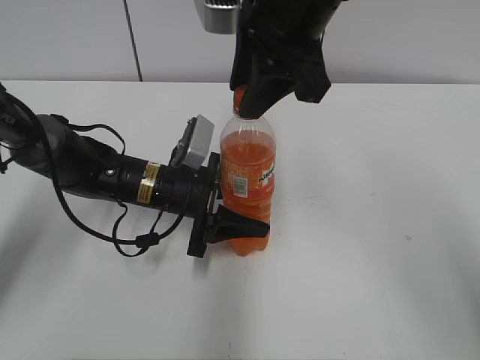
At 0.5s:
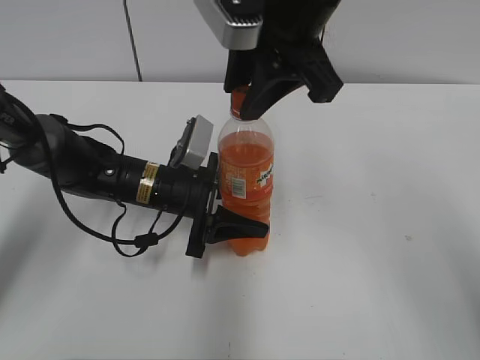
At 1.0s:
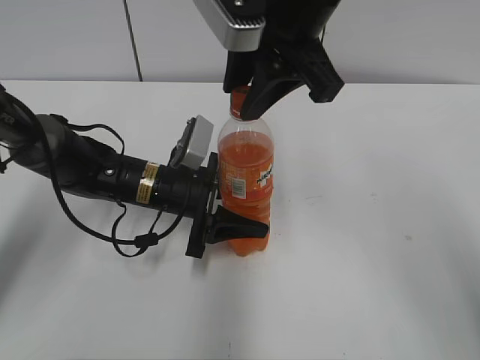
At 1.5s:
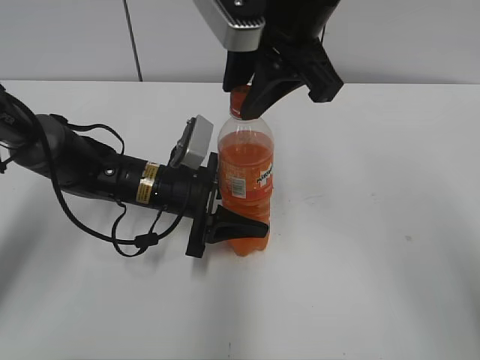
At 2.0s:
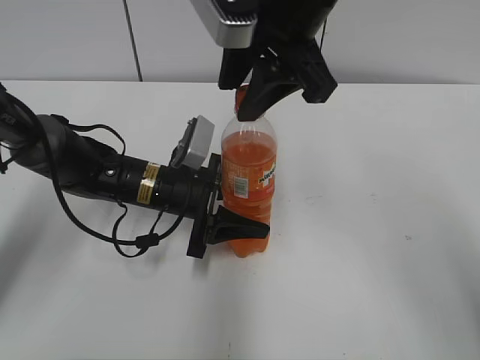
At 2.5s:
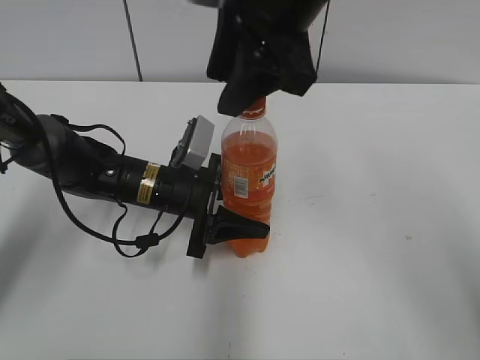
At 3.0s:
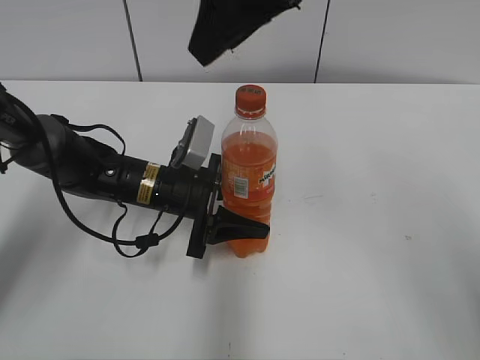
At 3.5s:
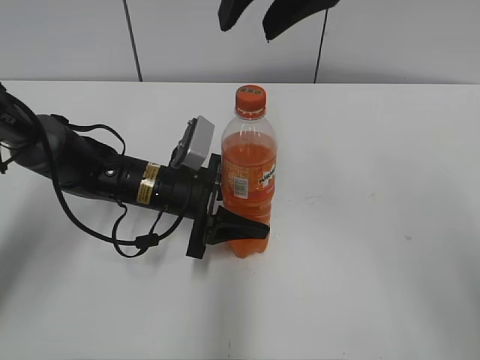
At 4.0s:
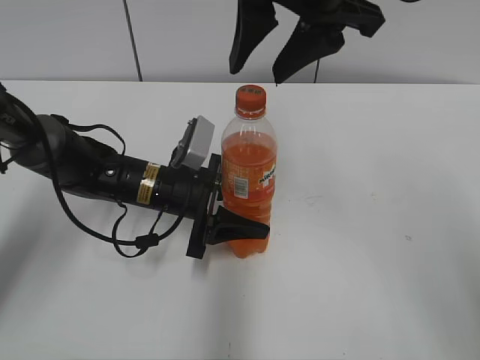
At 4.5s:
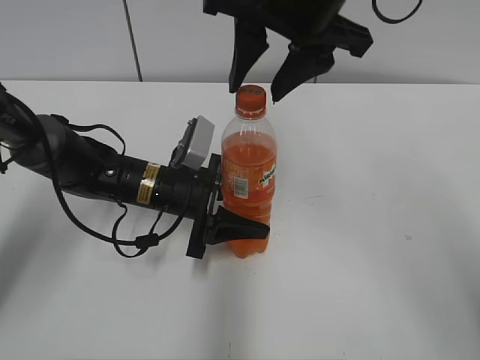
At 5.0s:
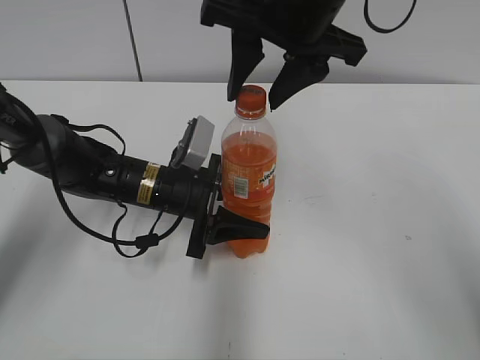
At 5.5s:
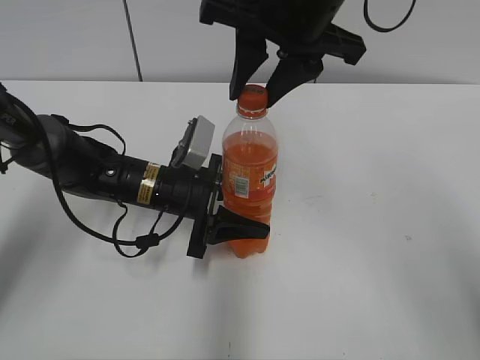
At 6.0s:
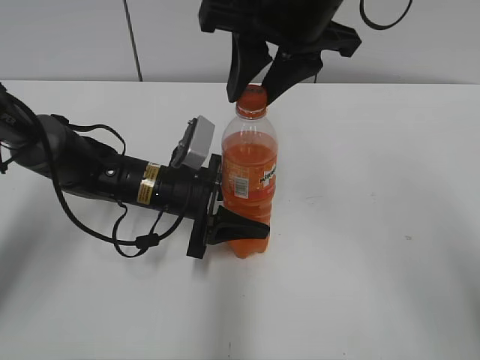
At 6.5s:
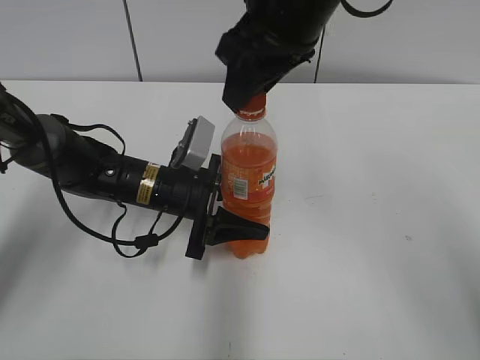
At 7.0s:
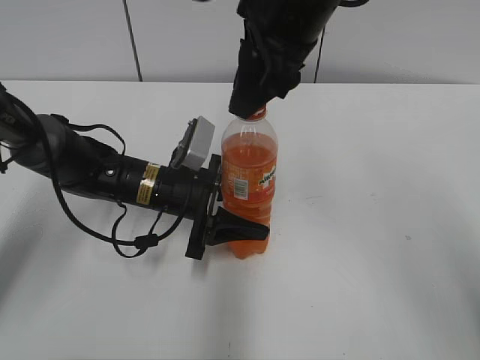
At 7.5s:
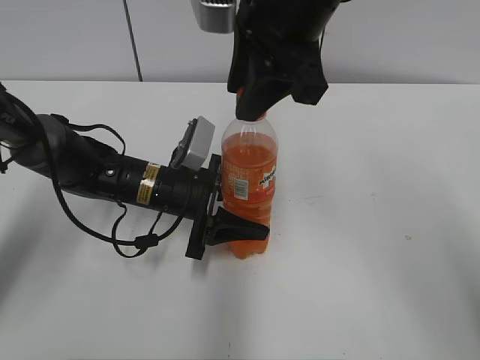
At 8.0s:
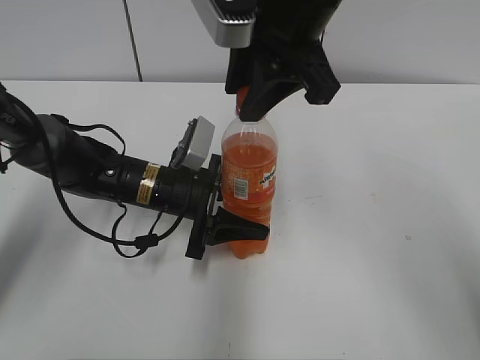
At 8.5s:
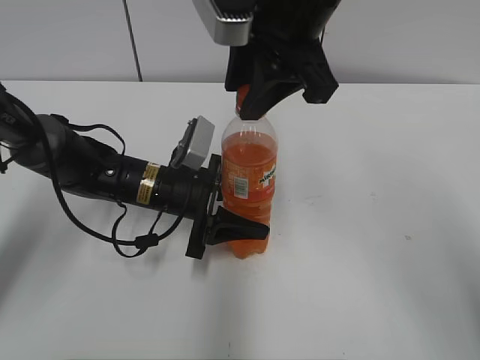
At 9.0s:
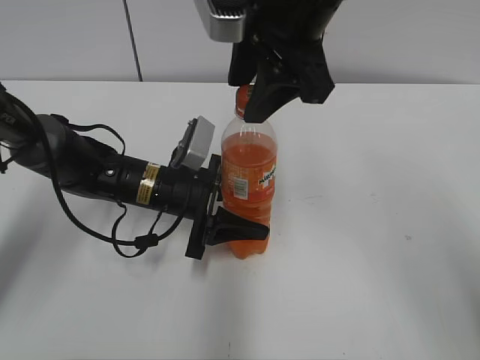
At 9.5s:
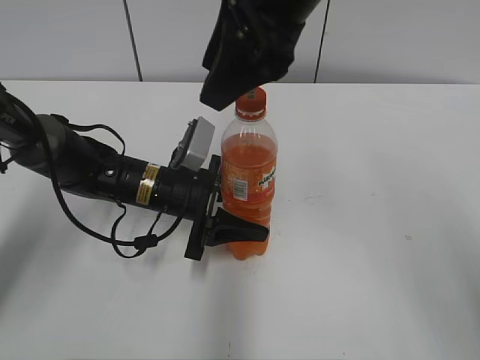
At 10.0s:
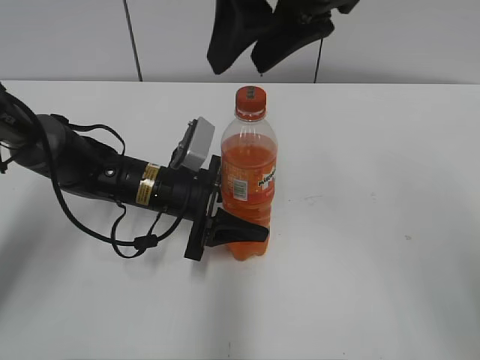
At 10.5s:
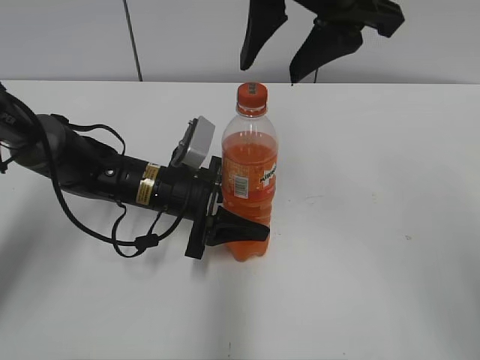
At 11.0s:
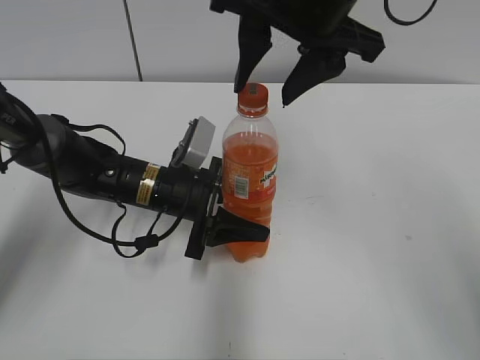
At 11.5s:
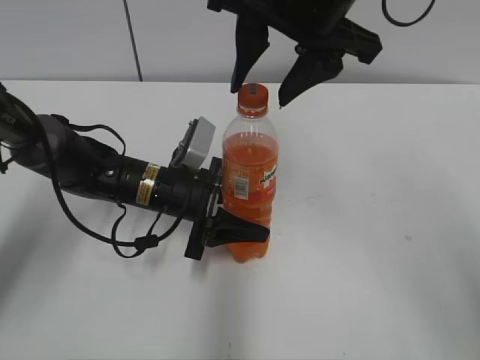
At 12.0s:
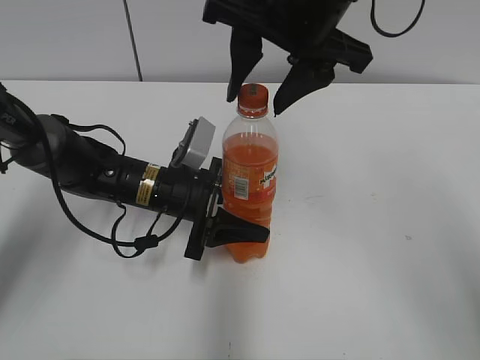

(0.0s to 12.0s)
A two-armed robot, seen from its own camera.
0.0s - 2.0s: The grippers move only a little.
4.0s - 6.0s: The grippers make only small movements.
8.0s - 10.0s: The right gripper opens its fingers.

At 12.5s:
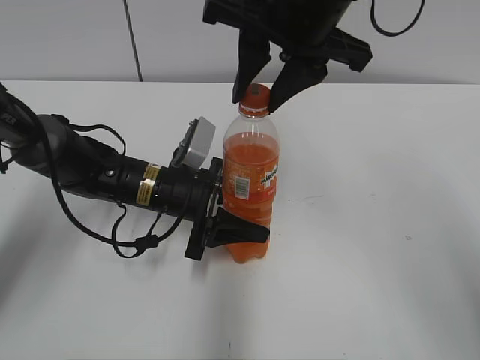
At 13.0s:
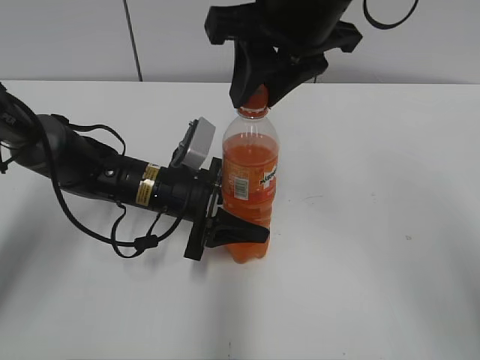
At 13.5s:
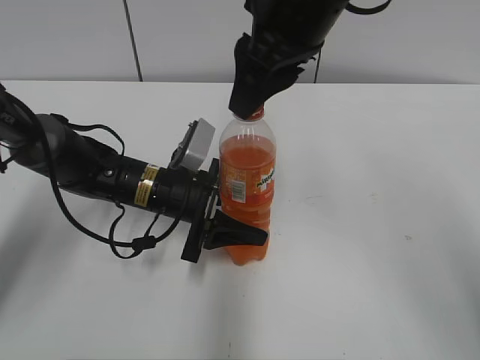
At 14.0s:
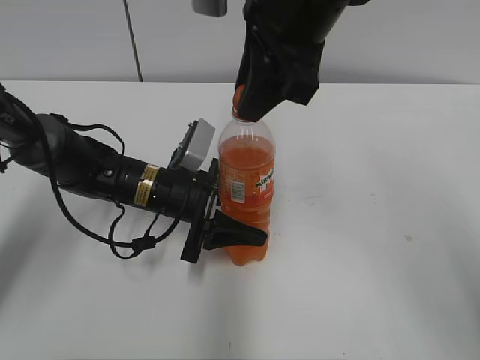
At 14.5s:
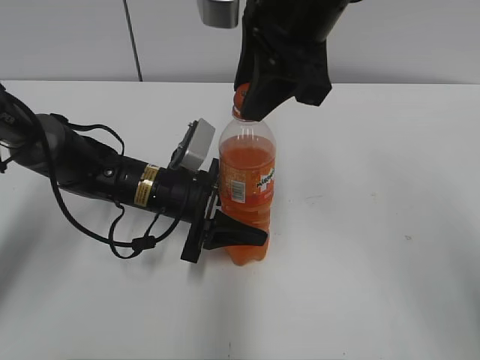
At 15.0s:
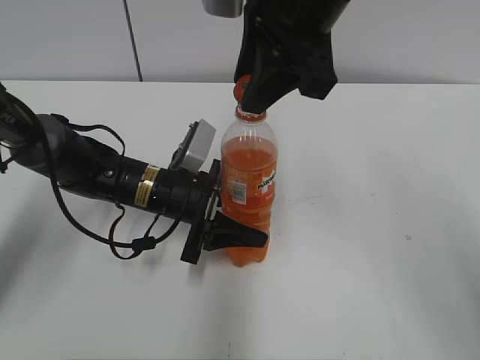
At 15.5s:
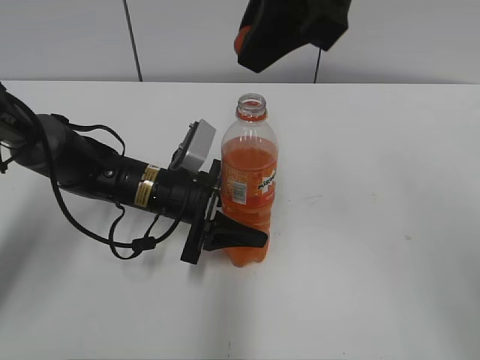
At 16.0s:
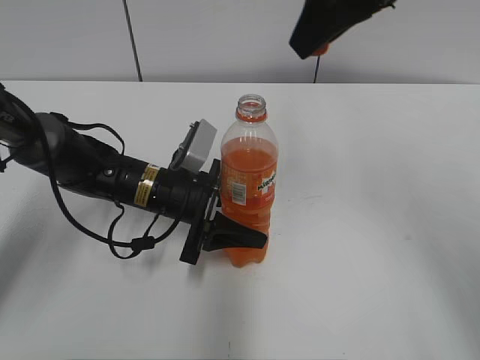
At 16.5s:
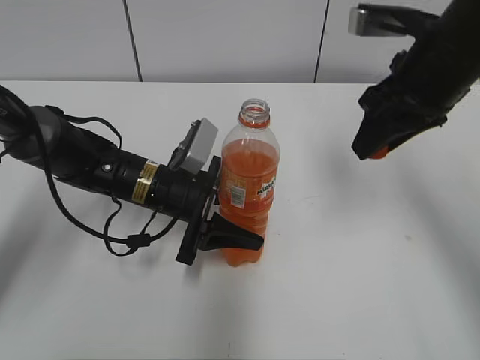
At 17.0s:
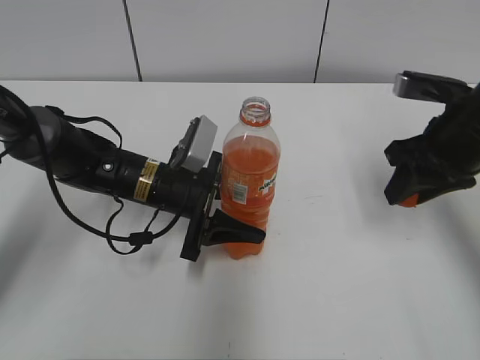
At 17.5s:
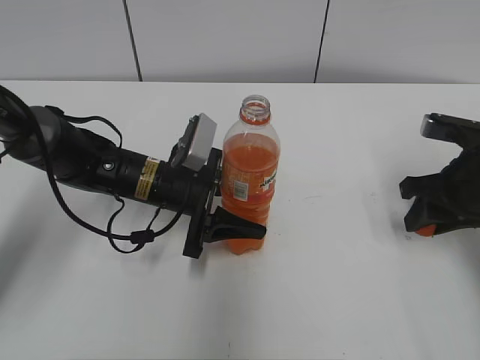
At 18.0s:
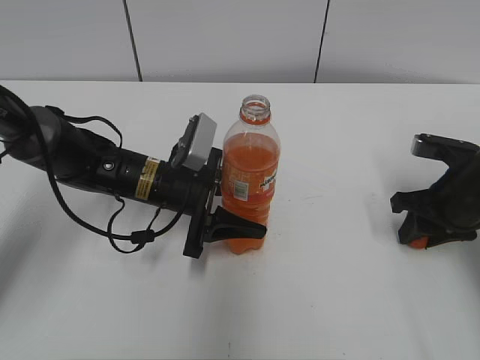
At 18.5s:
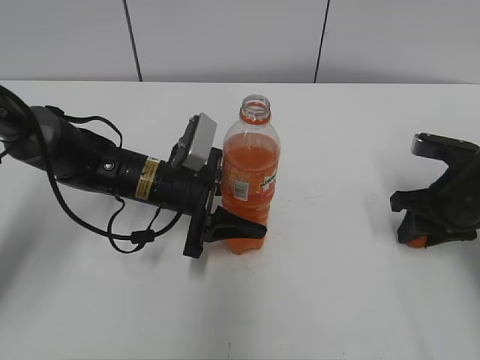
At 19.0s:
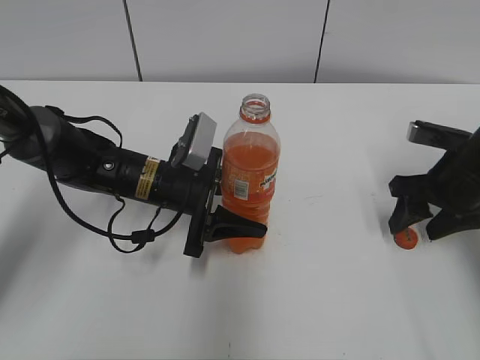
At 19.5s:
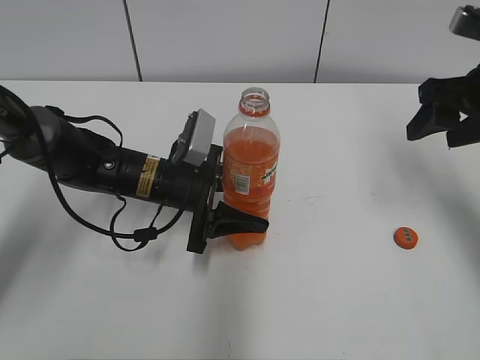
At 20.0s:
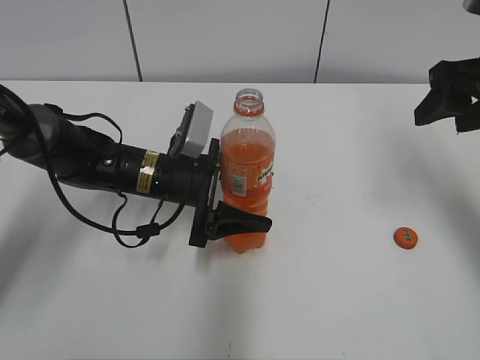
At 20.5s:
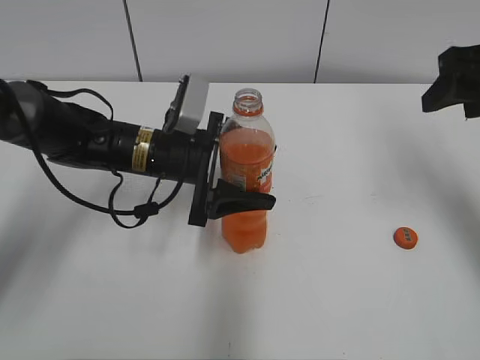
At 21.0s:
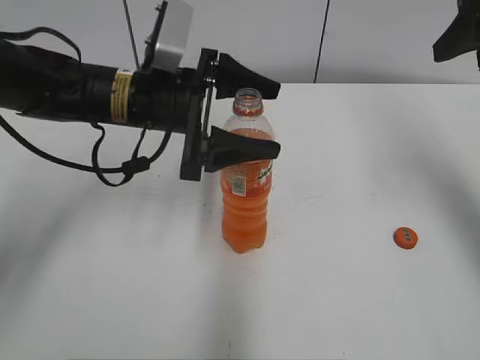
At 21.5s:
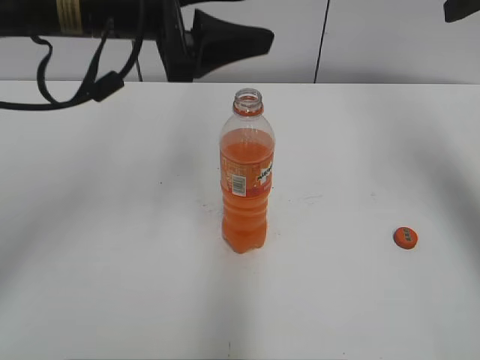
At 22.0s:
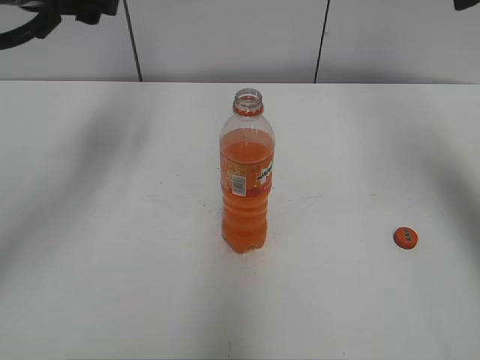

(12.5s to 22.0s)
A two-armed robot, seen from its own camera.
Step, 12.5s - 15.0s: Fix the Mirinda on the left.
Step, 15.5s - 18.5s: Place the bottle cap on the right.
14.5s - 16.5s: The right gripper shifts roughly 15 cm to the right and downward.
16.5s - 18.0s: The right gripper goes approximately 20 cm downward and to the right.
18.0s - 20.0s: The left gripper opens, while the right gripper shifts approximately 15 cm upward, and opens its fingers.
20.0s - 22.0s: The right gripper travels upward by about 15 cm. Meanwhile the left gripper moves upward and to the left, approximately 25 cm.

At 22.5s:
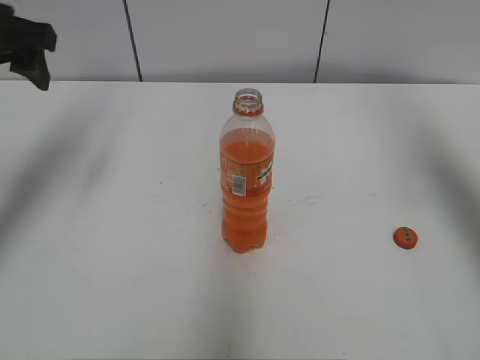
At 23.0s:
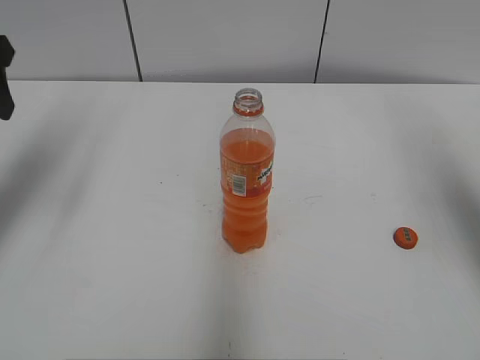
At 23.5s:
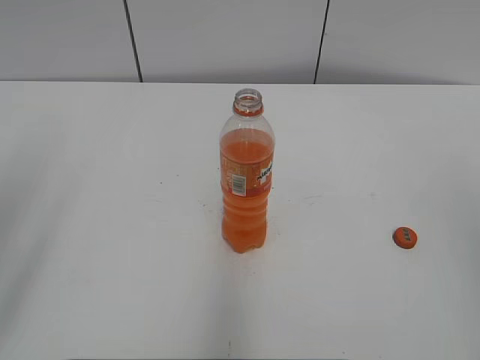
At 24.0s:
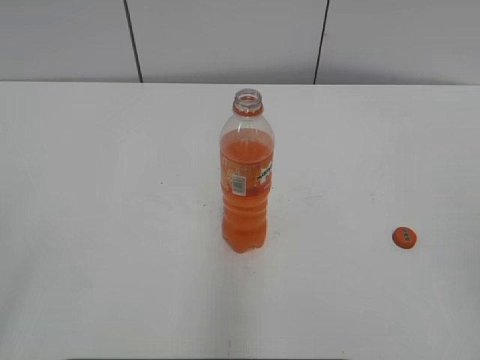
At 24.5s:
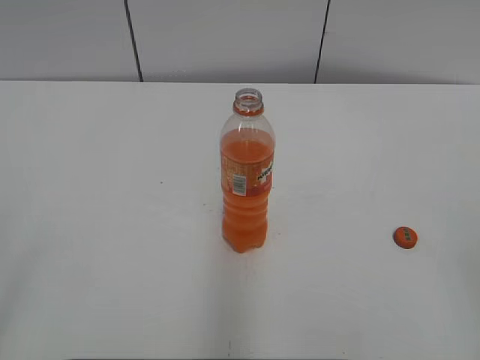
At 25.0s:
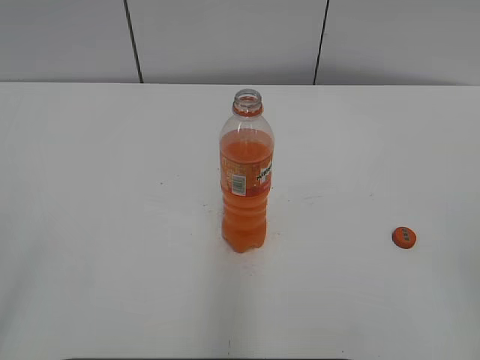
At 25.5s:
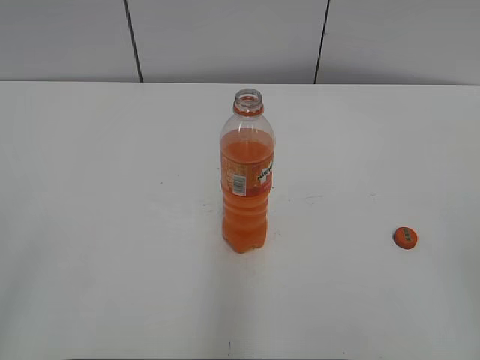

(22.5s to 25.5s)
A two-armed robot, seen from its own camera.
22.5s - 24.0s: Both grippers travel together backward, roughly 30 cm.

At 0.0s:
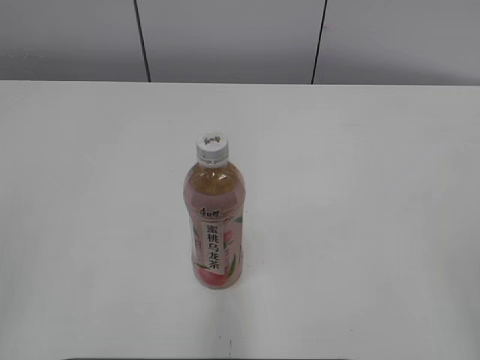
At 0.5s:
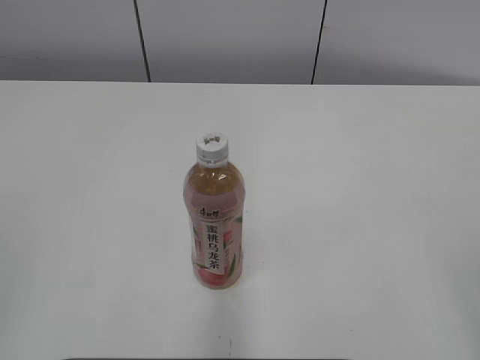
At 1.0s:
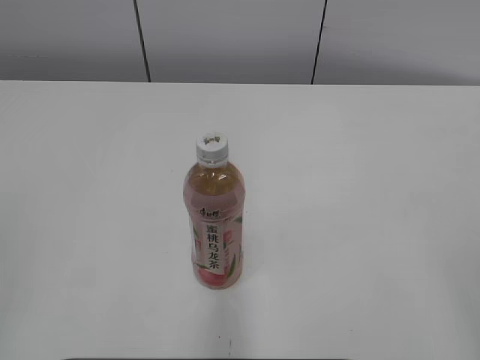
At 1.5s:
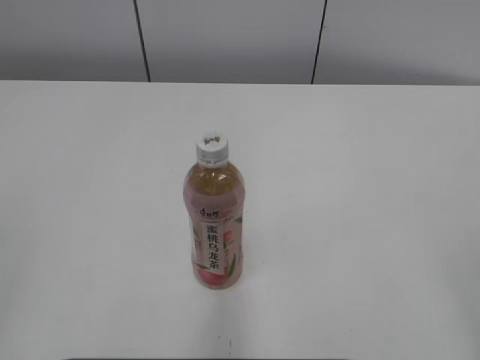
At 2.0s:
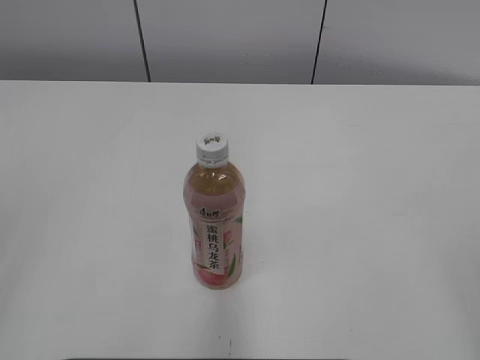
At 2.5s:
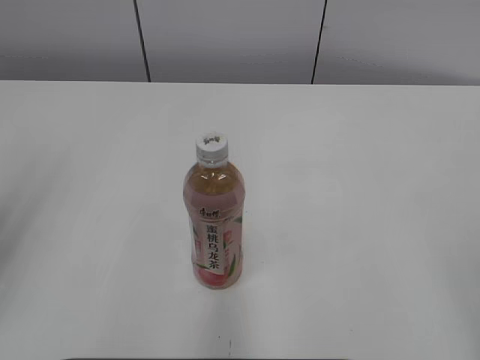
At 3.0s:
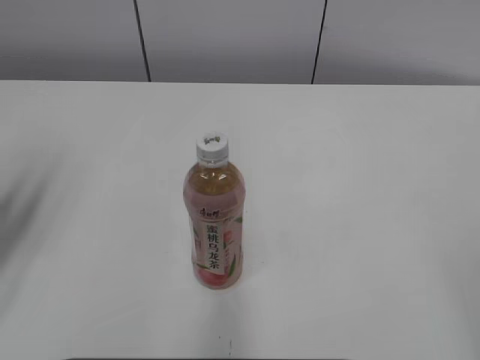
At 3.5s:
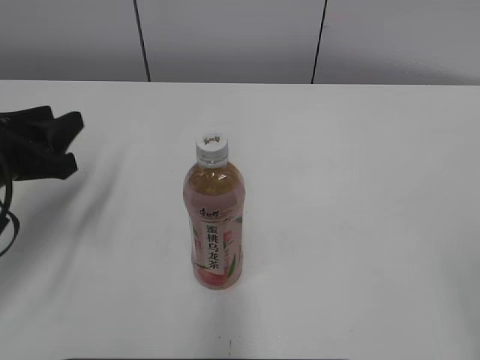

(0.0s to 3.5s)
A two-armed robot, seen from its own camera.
2.0s - 3.5s: The left gripper heads forward and downward, covering roughly 30 cm.
